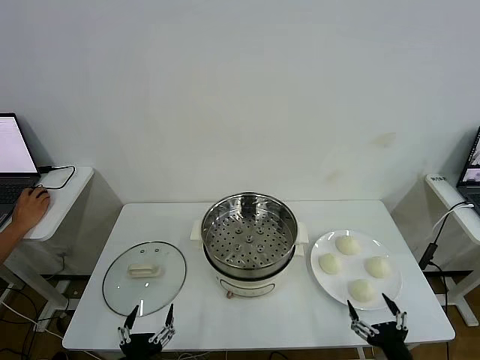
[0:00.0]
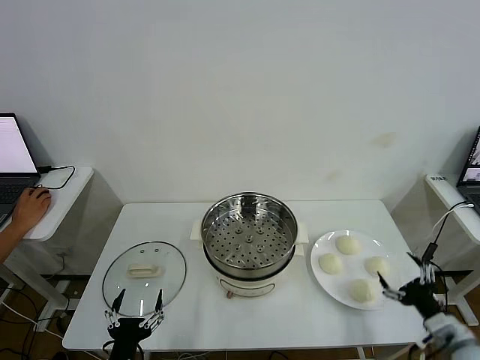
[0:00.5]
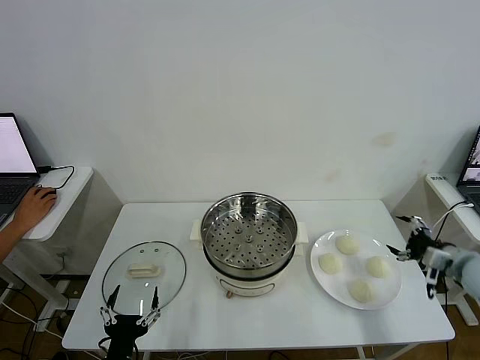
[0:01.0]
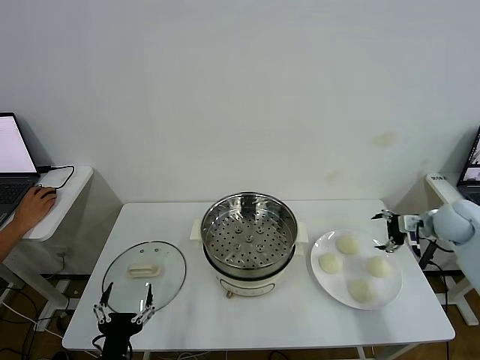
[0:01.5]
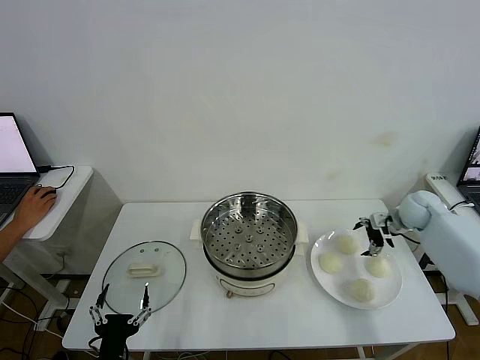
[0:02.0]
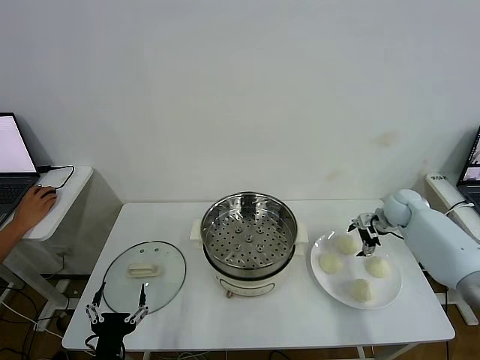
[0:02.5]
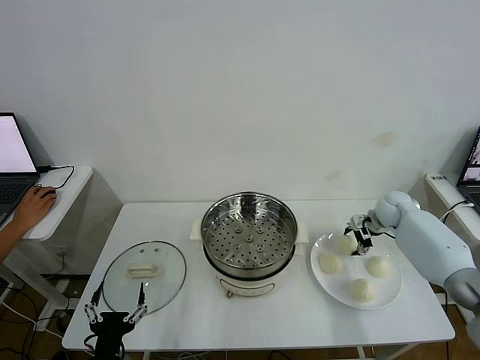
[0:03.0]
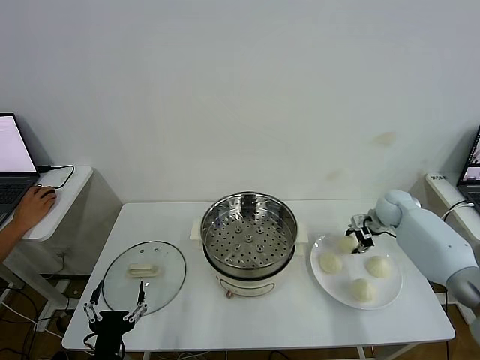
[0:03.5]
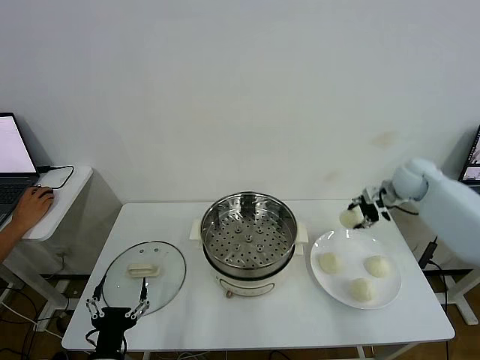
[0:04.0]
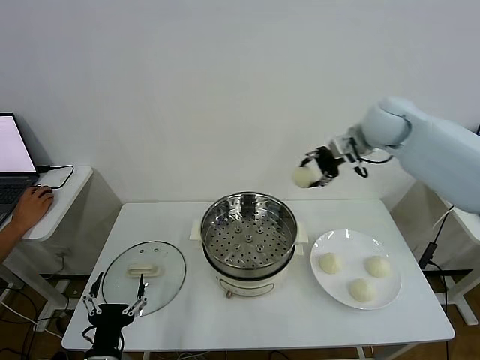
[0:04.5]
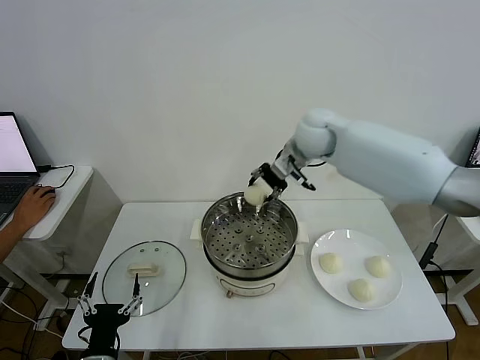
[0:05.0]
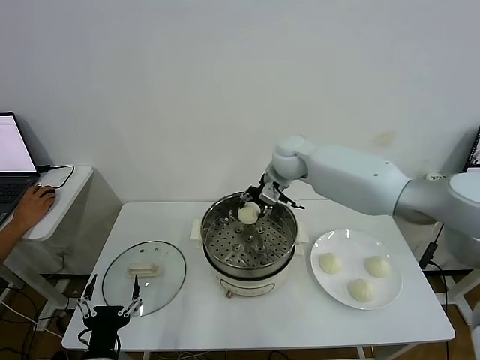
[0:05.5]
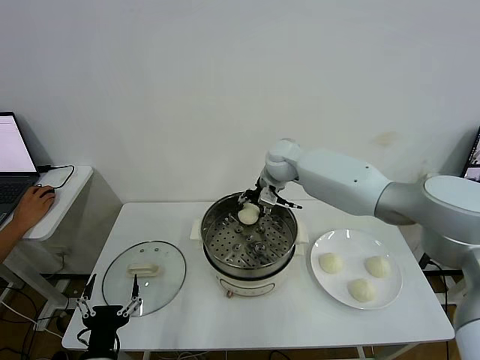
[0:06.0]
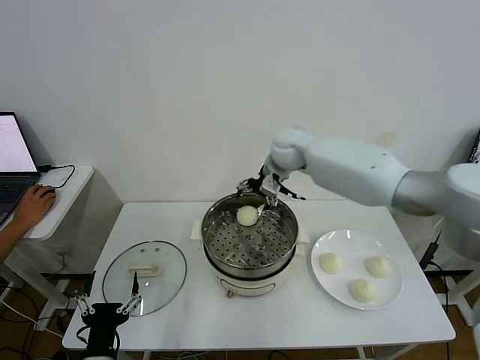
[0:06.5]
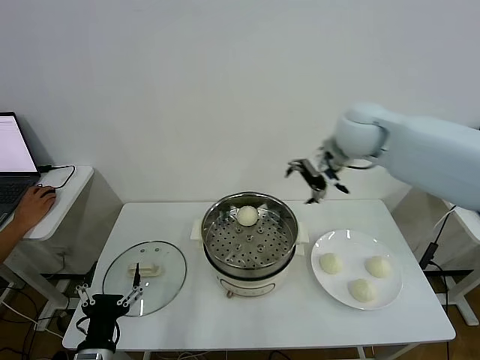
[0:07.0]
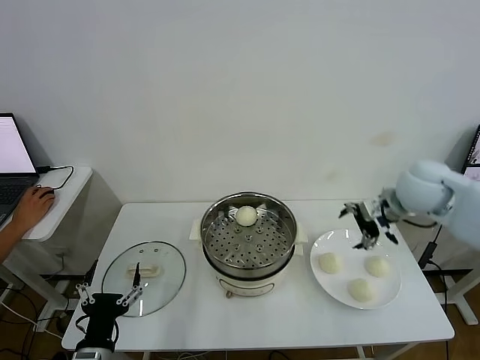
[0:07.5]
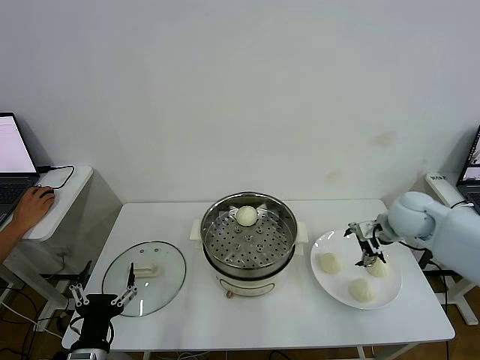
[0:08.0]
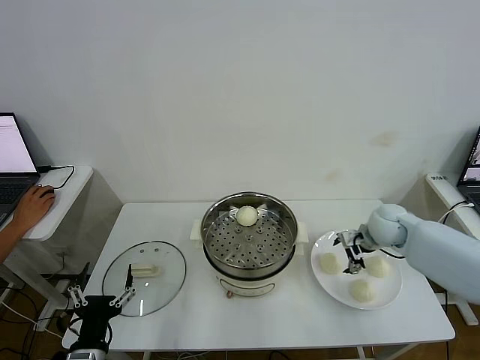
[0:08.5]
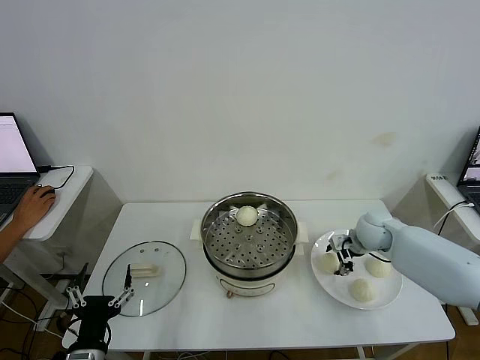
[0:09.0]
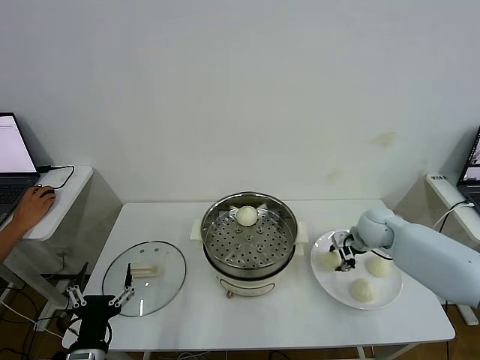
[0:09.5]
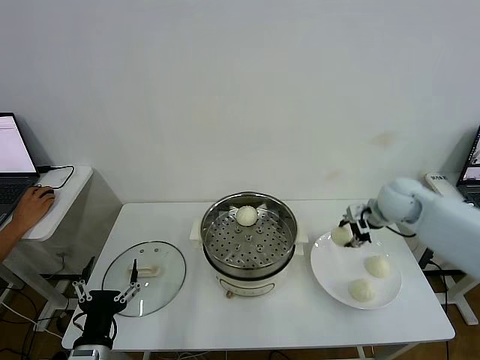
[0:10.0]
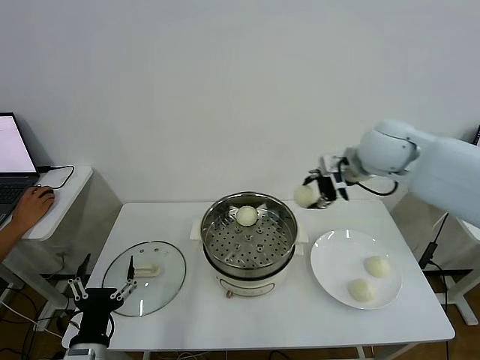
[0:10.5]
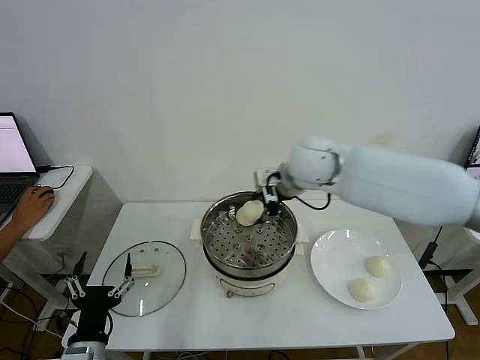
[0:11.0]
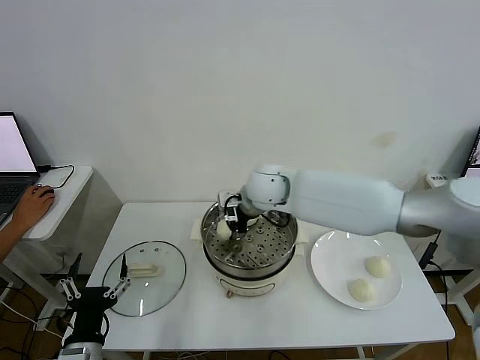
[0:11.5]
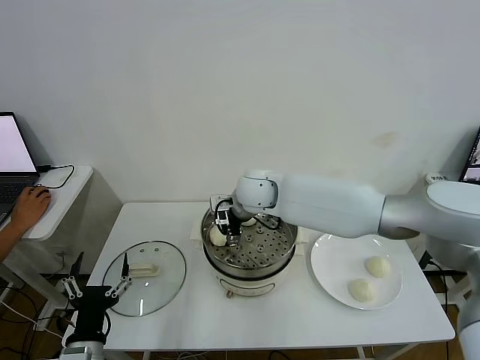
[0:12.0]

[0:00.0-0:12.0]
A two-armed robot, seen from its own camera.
Step, 0:00.0 to 0:03.0: Grasp the baozi in the plate with right gripper.
Step, 0:03.5 to 0:06.0: Place the baozi on the steamer with right gripper.
Step, 0:06.5 to 0:09.0: Grasp the baozi in the plate with right gripper.
0:02.0 to 0:04.0: The right gripper is displaced upward by some 15 cm, and closes.
0:04.0 to 0:06.0: The right gripper goes about 30 cm to the left, and opens its fingers.
0:06.0 to 0:08.0: The right gripper shifts approximately 30 cm to the right and backward, and opens its fingers.
0:08.0 to 0:10.0: The right gripper heads upward, covering roughly 5 cm, and closes its fingers.
0:10.0 to 0:12.0: The right gripper travels to the left by about 30 cm, and opens.

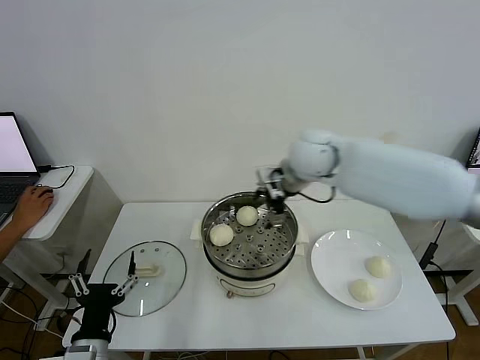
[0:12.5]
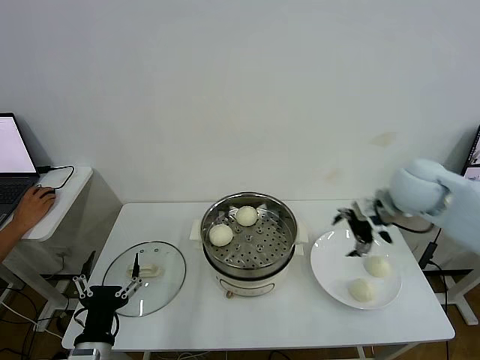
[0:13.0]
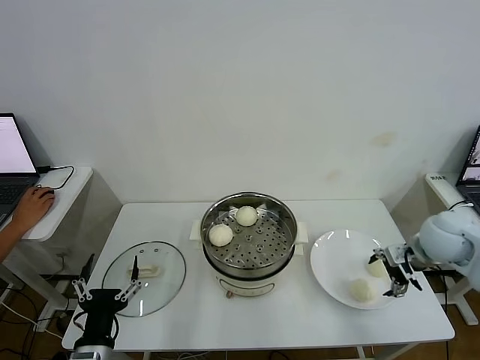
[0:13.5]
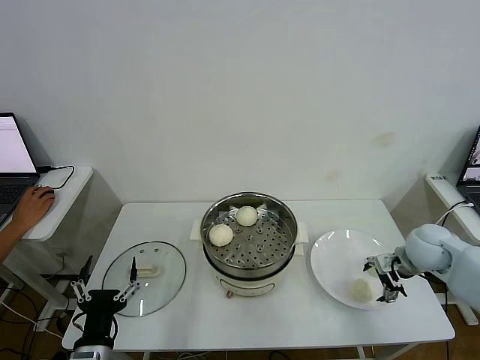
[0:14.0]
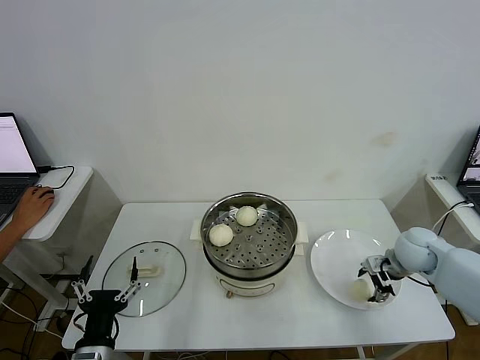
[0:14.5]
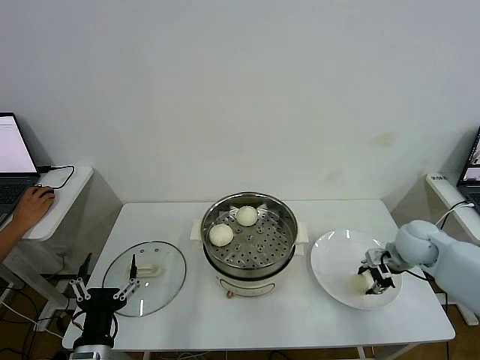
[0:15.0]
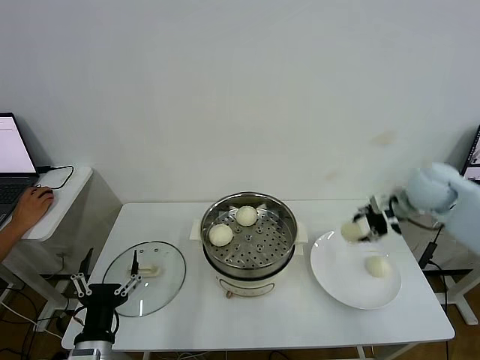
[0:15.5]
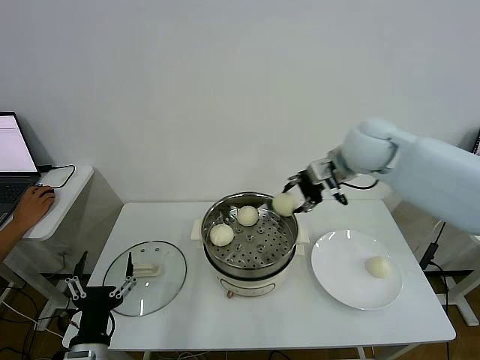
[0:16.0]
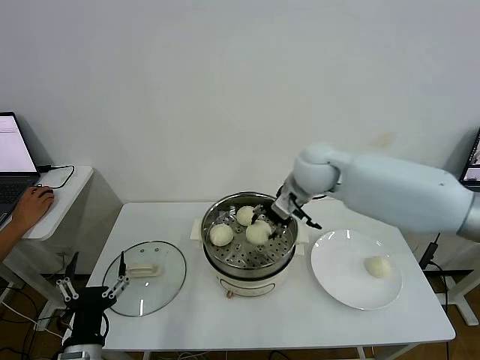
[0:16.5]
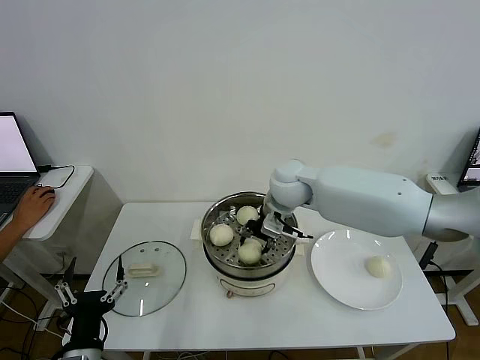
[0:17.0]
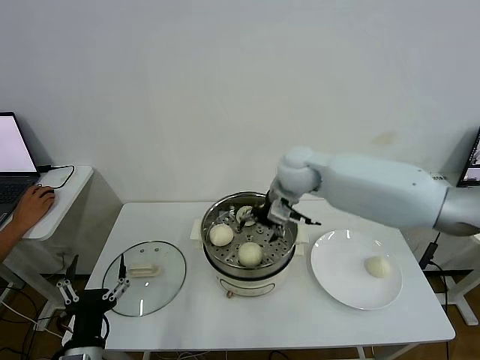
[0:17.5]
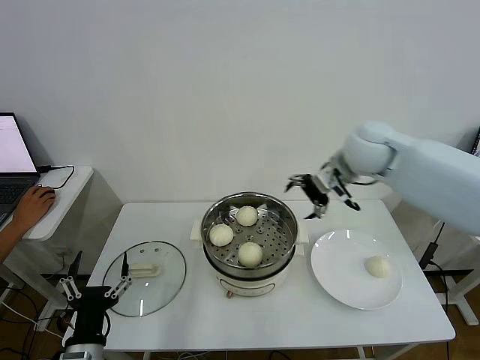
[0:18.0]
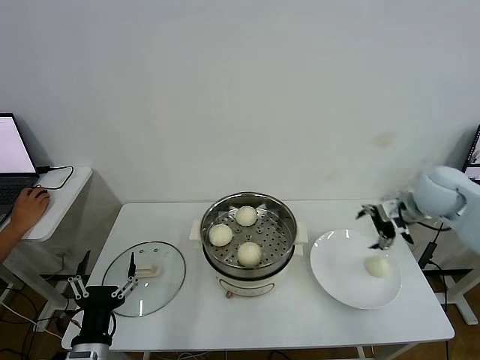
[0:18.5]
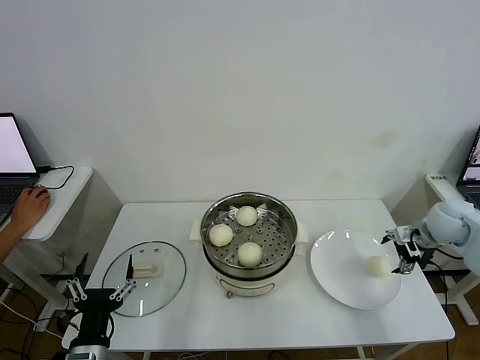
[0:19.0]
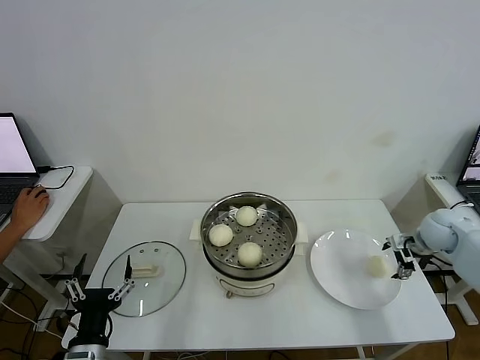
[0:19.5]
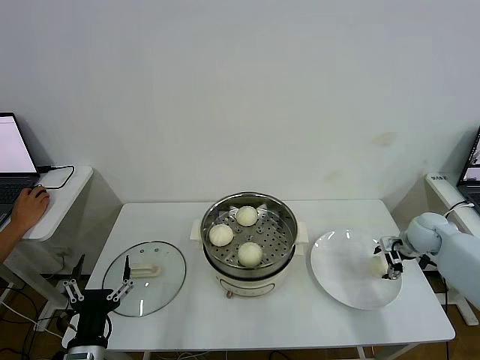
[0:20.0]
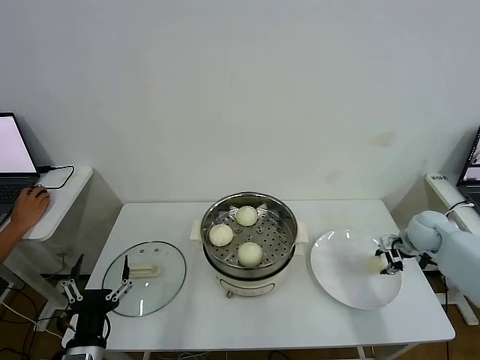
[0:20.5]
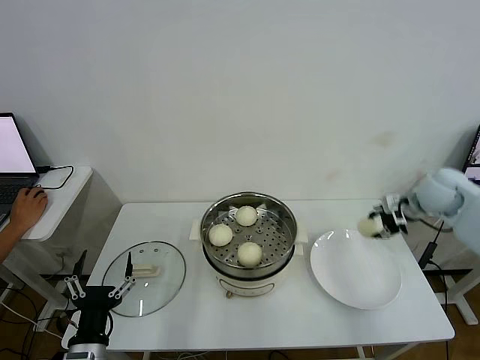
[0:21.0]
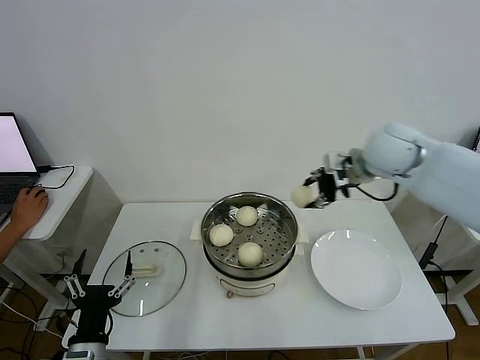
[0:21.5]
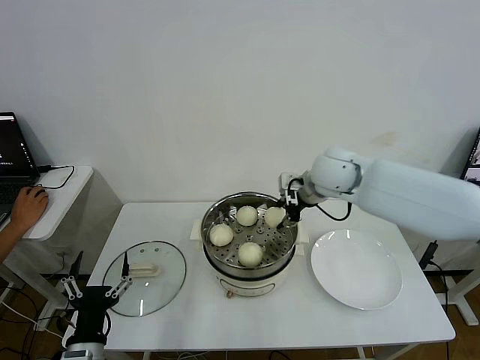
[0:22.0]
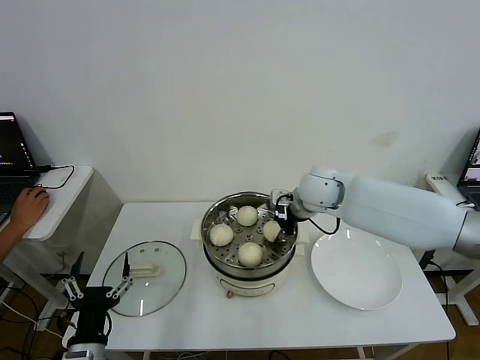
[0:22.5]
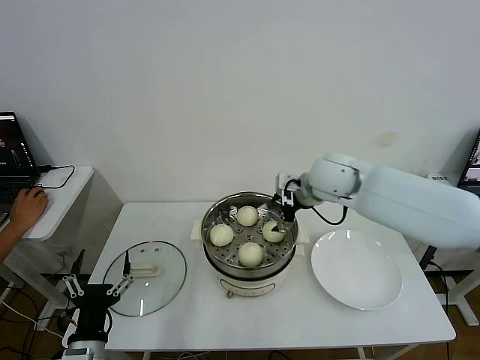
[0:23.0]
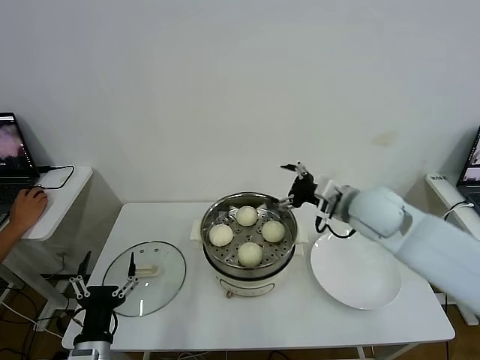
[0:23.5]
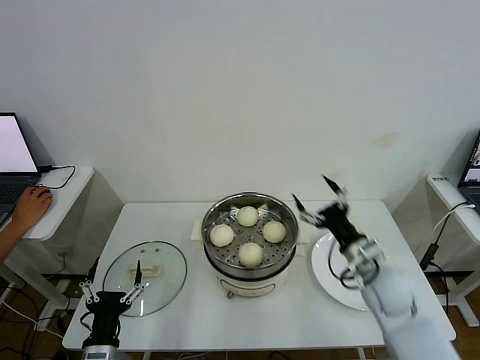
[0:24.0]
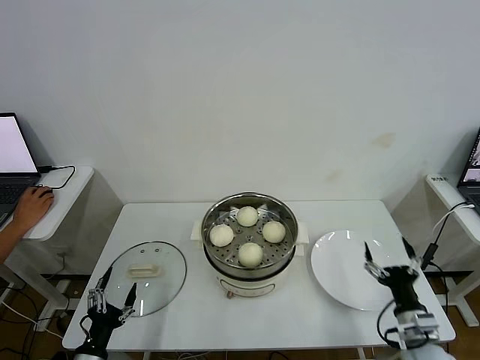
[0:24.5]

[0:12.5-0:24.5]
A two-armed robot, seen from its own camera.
Step, 0:12.5 to 0:14.5: Grasp the baozi in the plate with right gripper.
Step, 0:15.0 to 0:17.0: Place the baozi on the steamer with right gripper.
Step, 0:17.5 to 0:20.0: Grasp the baozi in the plate with right gripper.
Step, 0:20.5 to 0:23.0: Place the baozi on the steamer with right gripper.
0:12.5 to 0:14.5: The right gripper heads to the right and downward, covering about 30 cm, and closes its fingers.
0:14.5 to 0:16.5: The right gripper goes about 30 cm to the left and upward, and closes its fingers.
0:16.5 to 0:18.5: The right gripper goes roughly 25 cm to the right, and opens up.
0:18.5 to 0:20.5: The right gripper shifts approximately 15 cm downward, and closes.
0:20.5 to 0:22.5: The right gripper travels to the left and upward by approximately 30 cm.
0:22.5 to 0:24.5: The left gripper goes roughly 10 cm downward and to the left, while the right gripper is displaced backward, downward and to the right by approximately 40 cm, and opens.

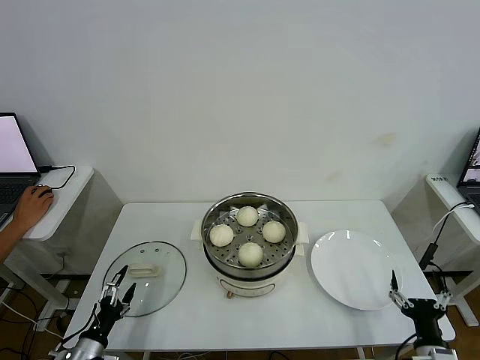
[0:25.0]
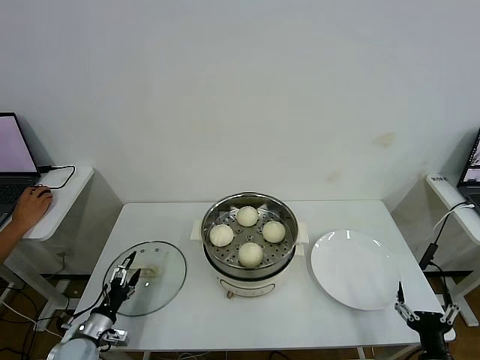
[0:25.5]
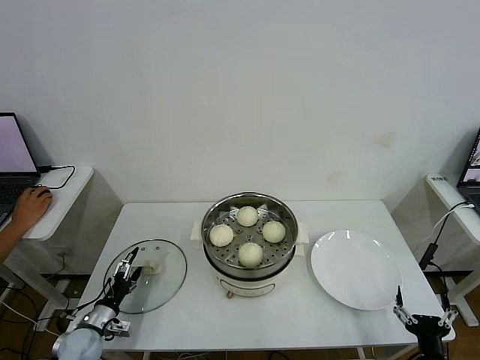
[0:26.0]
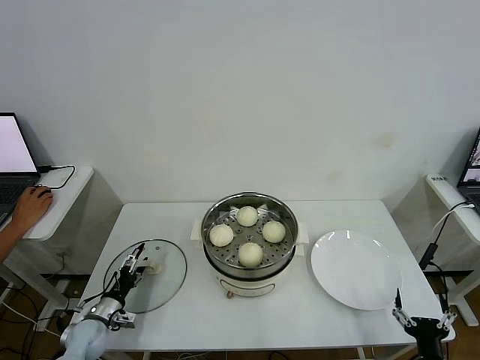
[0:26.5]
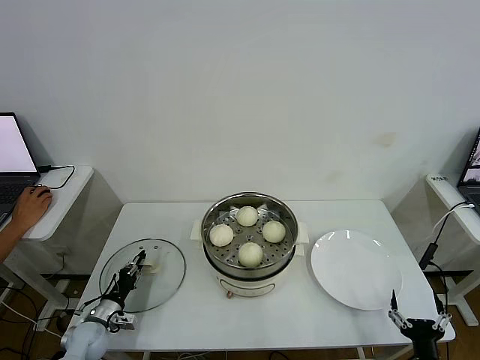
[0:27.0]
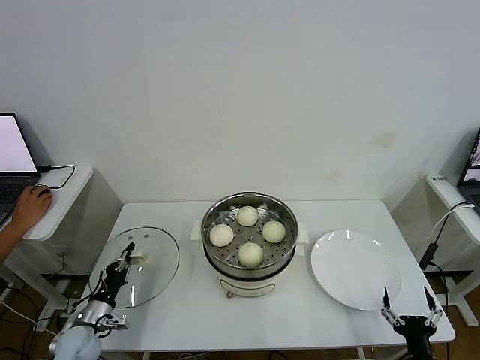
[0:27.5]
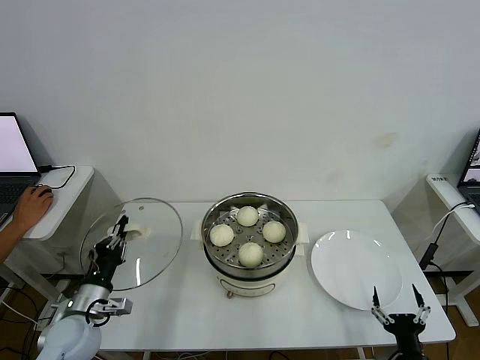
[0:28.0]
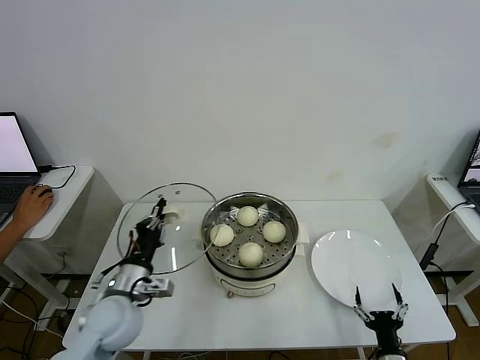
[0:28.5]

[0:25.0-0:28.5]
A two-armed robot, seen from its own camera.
Step, 0:25.0 to 0:27.0: Grasp the pot lid with left gripper.
0:25.0 to 0:27.0: The left gripper travels forward by some 10 cm, and closes.
0:27.0 to 0:28.5: The left gripper is displaced upward and to the right by about 25 cm, while the right gripper moves roughly 5 cm.
